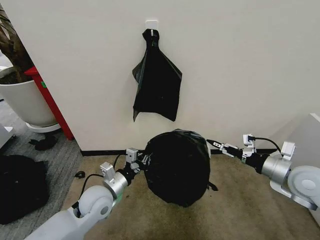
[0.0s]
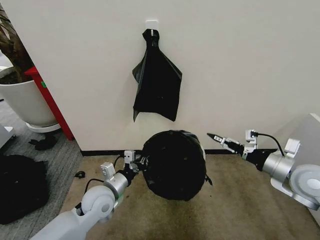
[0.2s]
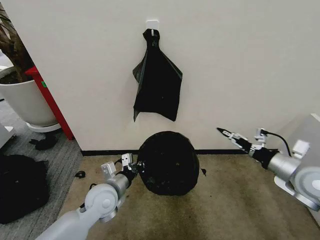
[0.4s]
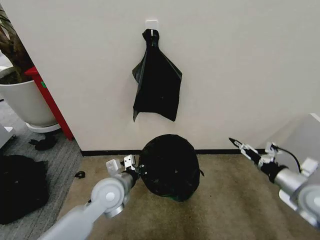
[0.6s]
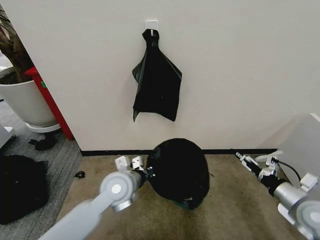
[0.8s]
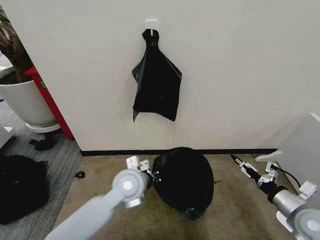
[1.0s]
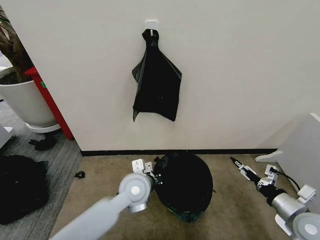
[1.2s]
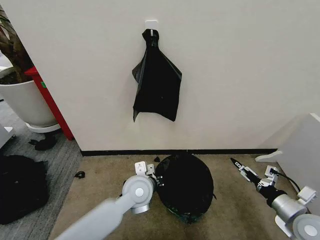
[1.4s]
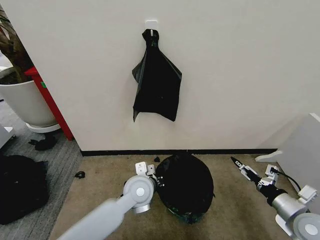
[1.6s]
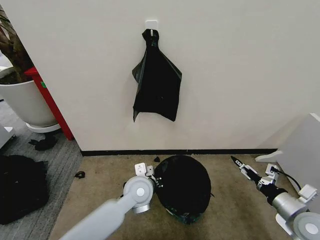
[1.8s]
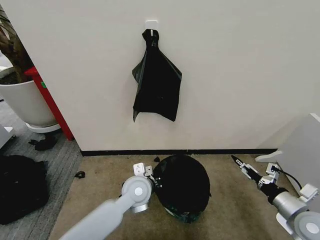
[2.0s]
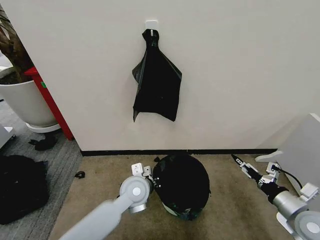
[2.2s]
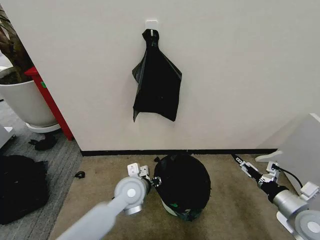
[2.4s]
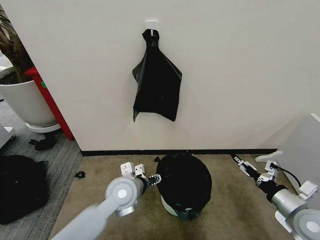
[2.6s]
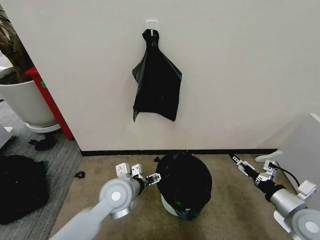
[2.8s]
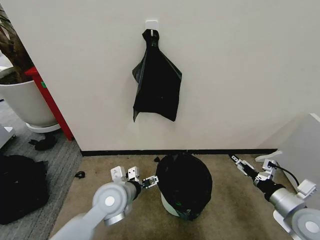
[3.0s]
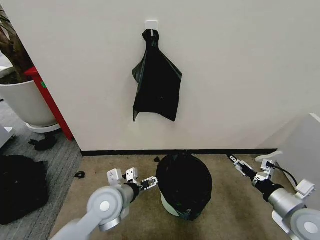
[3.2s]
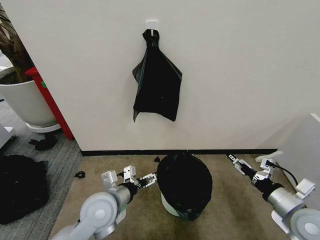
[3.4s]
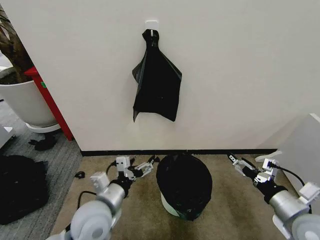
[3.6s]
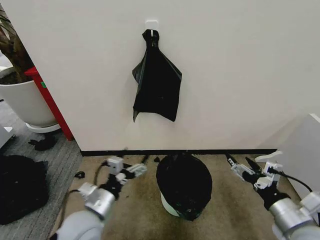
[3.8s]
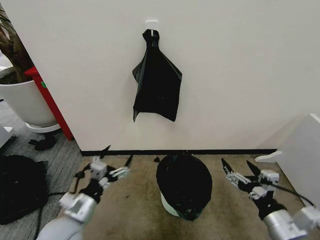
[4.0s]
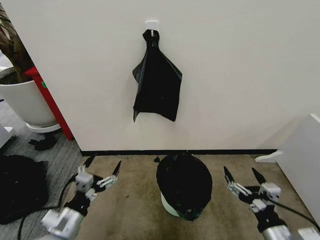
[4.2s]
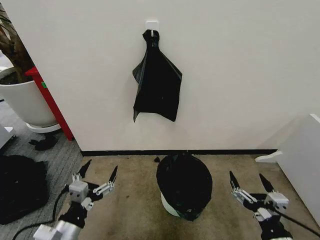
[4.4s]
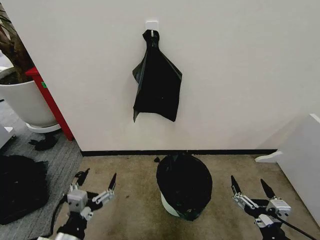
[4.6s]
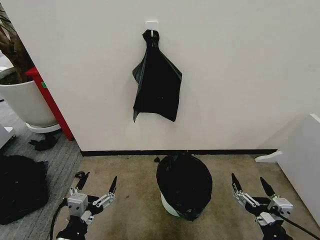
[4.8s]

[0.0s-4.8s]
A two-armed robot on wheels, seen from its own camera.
Task of the whole recording: Place the garbage bag over the trash bin.
0.0s to 1.6s: The left gripper moves to the right, roughly 15 cm. The right gripper goes roughly 15 cm downward and backward.
1.6s to 3.2s: The left gripper is displaced to the left and backward by some 10 cm, and opens.
3.2s to 4.8s: Both grippers travel together backward and to the left, roughly 20 cm.
